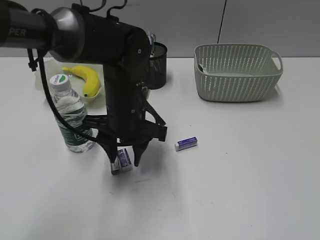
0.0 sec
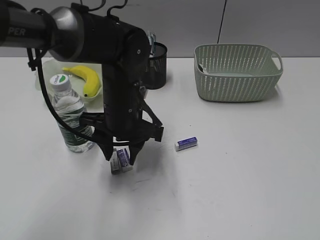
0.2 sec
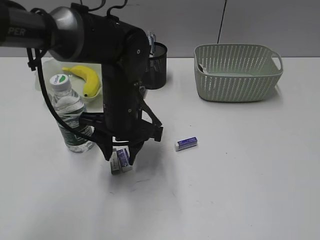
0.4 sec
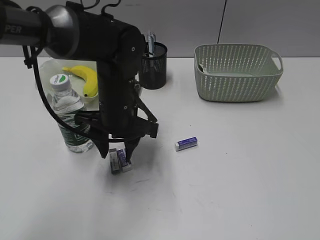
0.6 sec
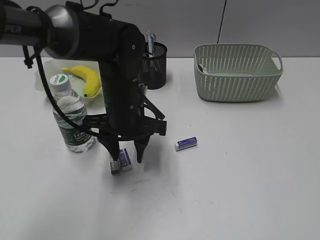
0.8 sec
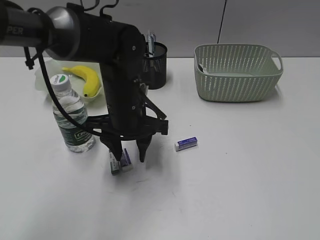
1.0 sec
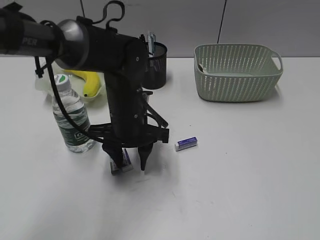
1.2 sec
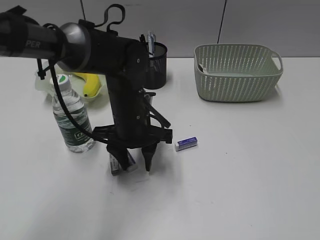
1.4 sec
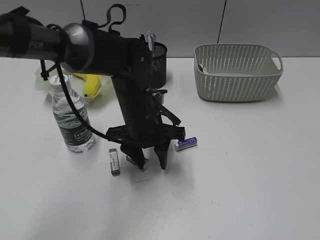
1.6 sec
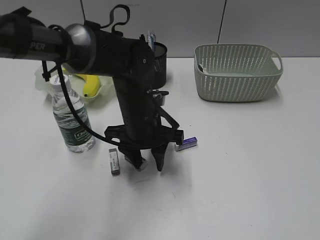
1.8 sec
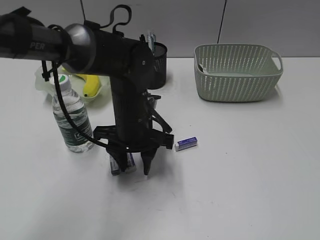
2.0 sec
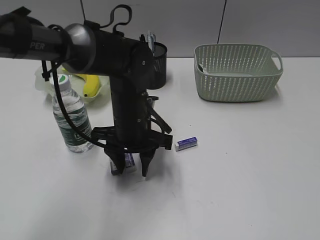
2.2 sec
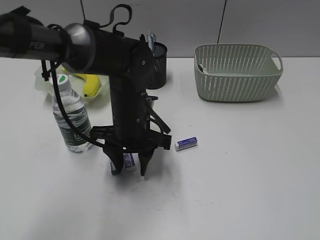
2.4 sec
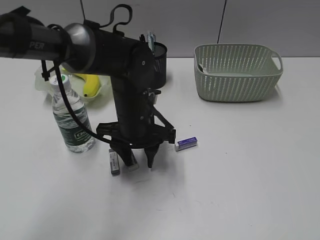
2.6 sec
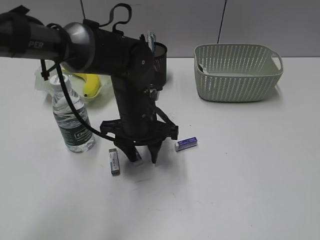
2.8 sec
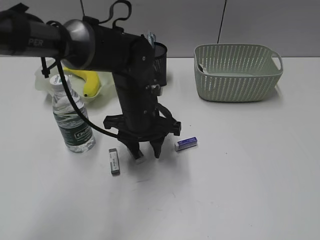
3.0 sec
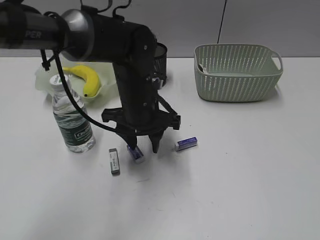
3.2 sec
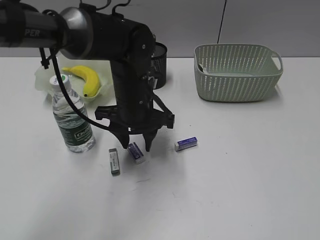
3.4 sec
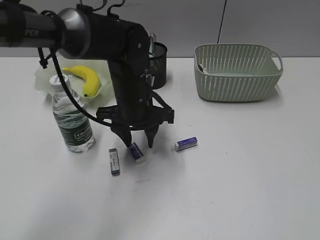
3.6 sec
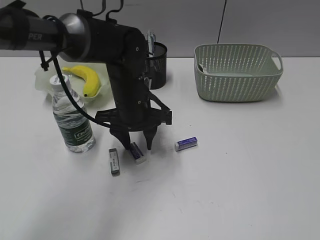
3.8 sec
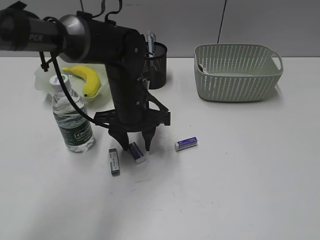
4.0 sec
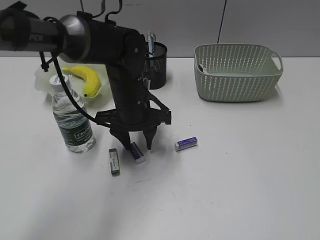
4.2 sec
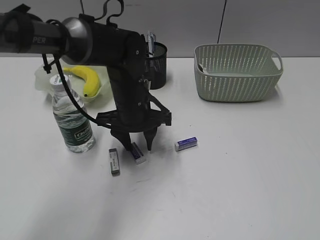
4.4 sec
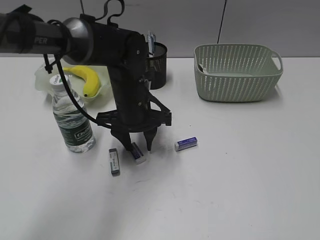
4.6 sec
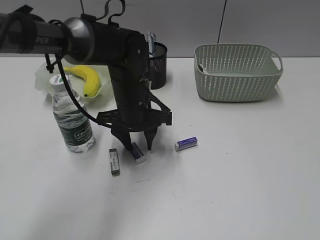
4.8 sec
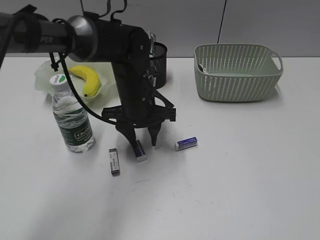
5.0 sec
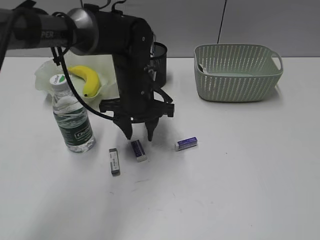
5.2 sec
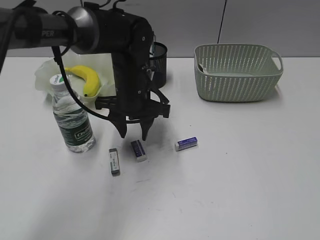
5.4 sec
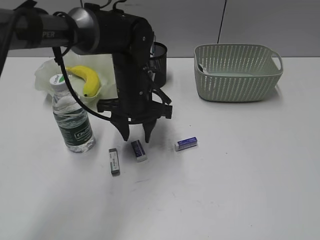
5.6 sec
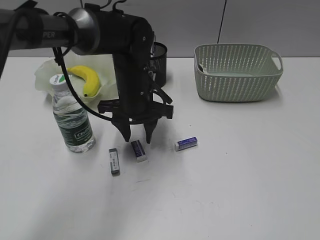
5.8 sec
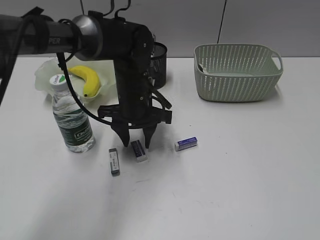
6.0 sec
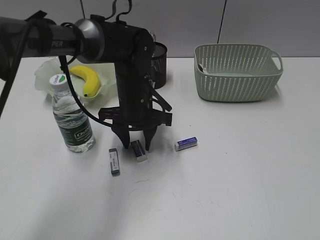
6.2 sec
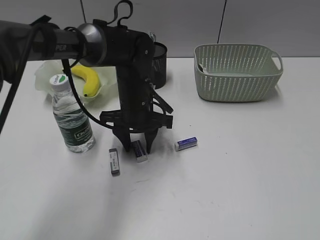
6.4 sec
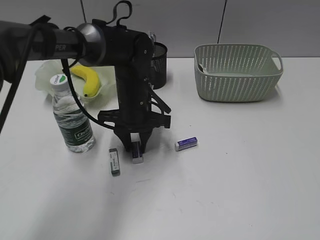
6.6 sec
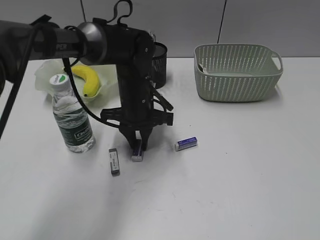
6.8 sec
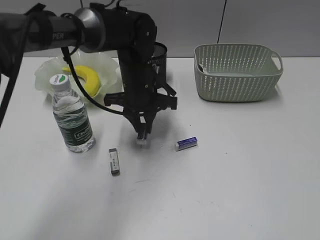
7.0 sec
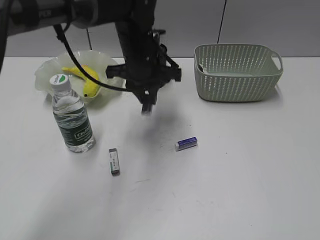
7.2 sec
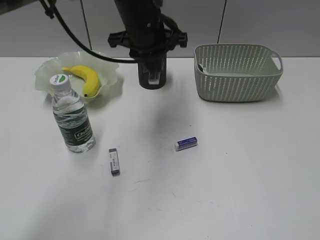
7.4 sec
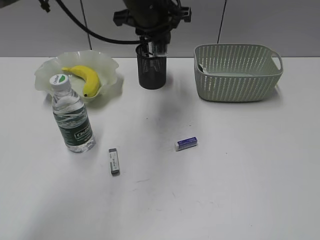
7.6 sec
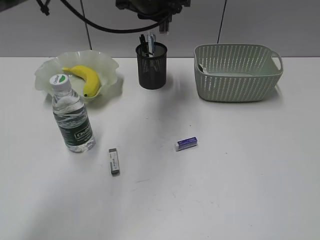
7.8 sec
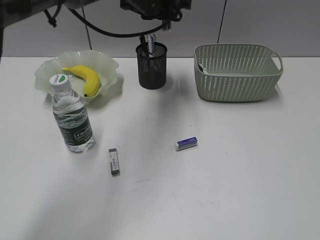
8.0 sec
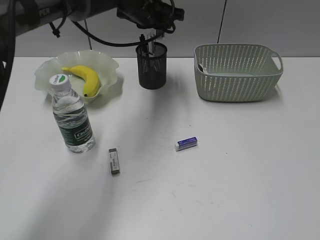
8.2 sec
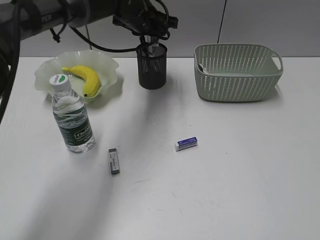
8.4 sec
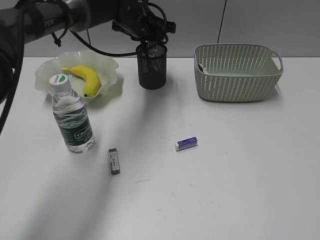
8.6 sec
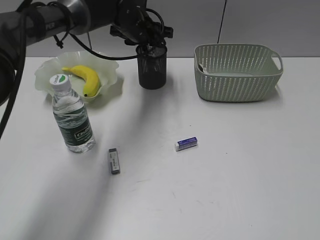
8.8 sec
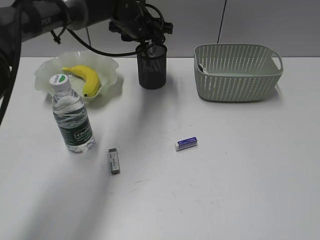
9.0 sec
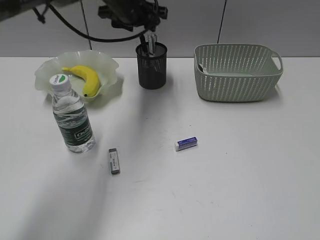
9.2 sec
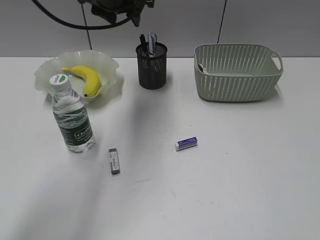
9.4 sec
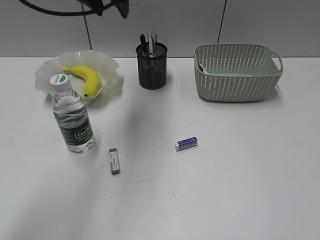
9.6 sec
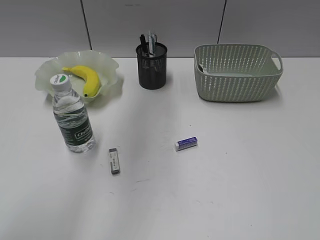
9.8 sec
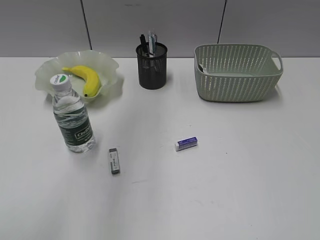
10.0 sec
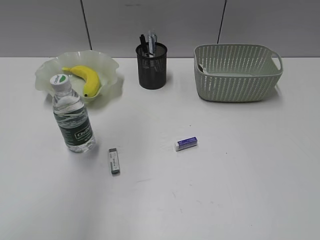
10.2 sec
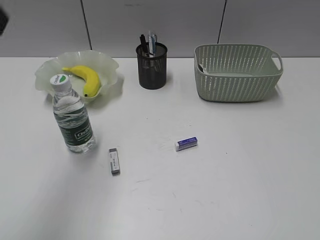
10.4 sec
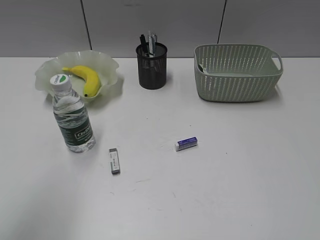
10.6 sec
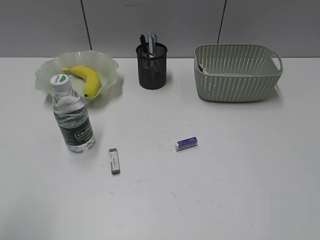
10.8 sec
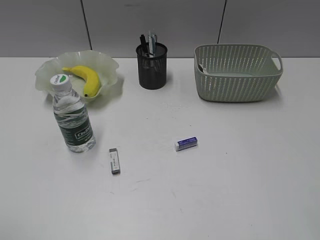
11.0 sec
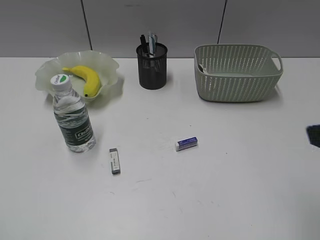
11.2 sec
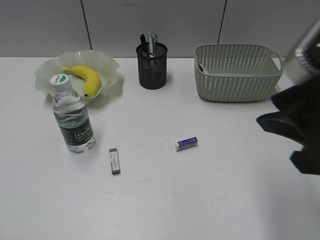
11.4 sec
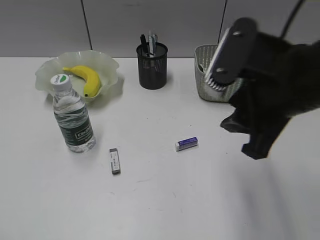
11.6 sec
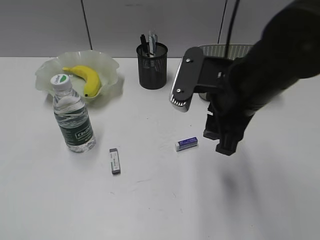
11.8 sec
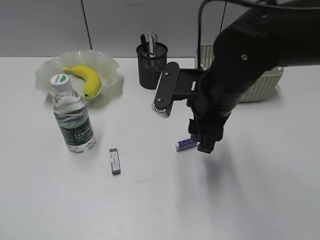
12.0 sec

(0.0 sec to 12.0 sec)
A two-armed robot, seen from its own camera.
Step, 0.0 sec - 6.6 sec: Grasp the eraser with left gripper.
Step, 6.8 sec - 9.0 sec: Place the eraser in pen holder with left gripper.
0.0 sec - 6.0 sec: The grippers move only a little.
6.0 sec - 7.6 sec: The left gripper shifts roughly 15 cm upward and forward, and closes its fingers.
7.6 sec - 9.0 sec: The left gripper goes roughly 10 cm forward and downward, and opens.
9.0 sec - 10.4 sec: The left gripper moves backward, upward and to the left, some 40 cm.
10.4 sec - 12.0 sec: The right gripper is displaced forward and to the left by approximately 35 cm. The left gripper goes approximately 25 cm backward, downward and to the left.

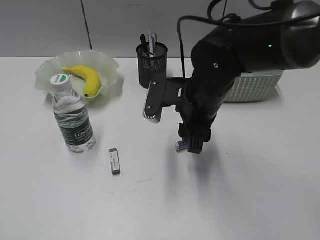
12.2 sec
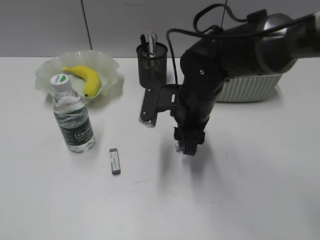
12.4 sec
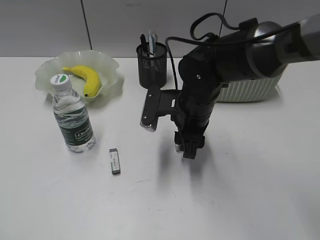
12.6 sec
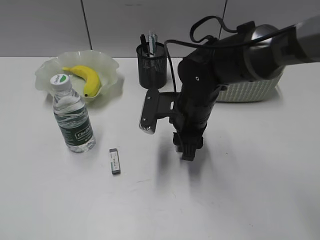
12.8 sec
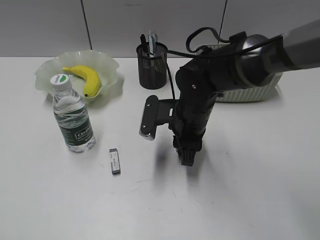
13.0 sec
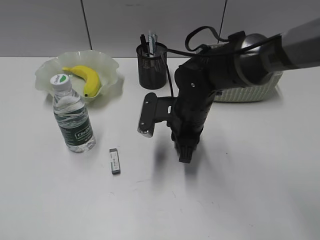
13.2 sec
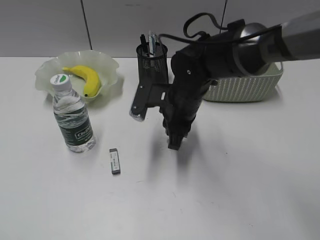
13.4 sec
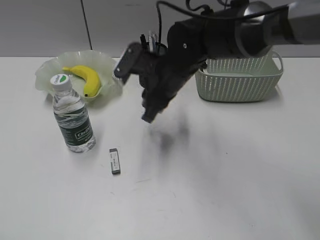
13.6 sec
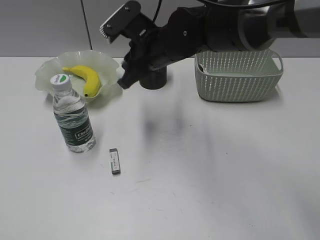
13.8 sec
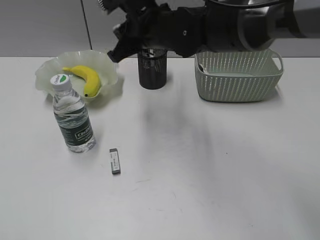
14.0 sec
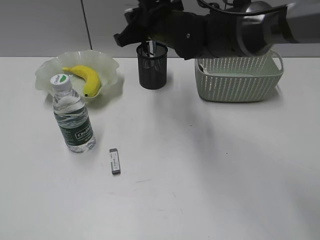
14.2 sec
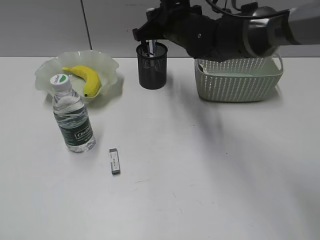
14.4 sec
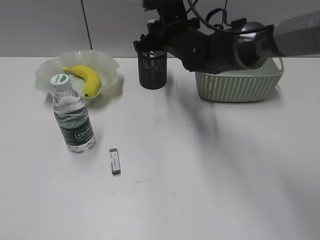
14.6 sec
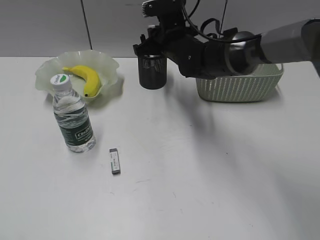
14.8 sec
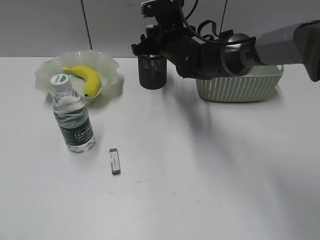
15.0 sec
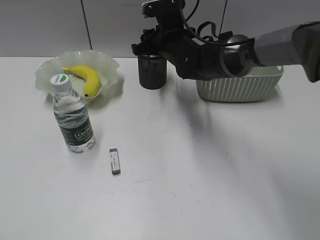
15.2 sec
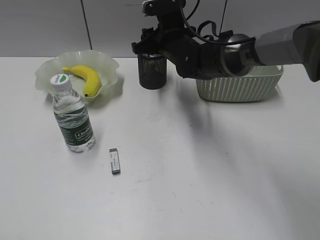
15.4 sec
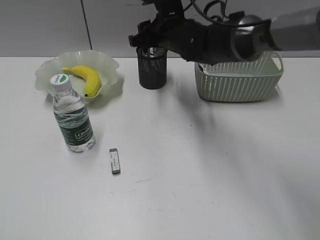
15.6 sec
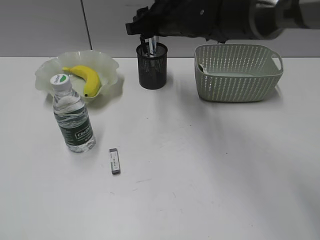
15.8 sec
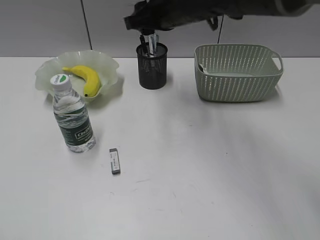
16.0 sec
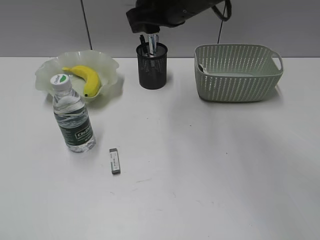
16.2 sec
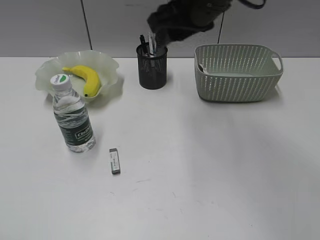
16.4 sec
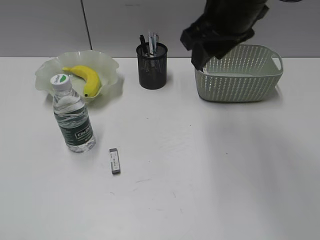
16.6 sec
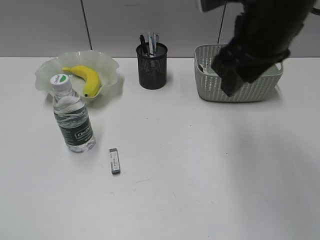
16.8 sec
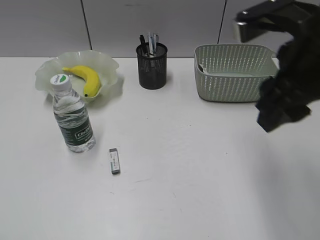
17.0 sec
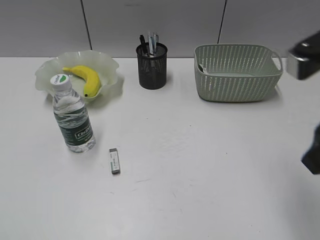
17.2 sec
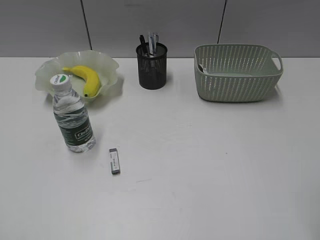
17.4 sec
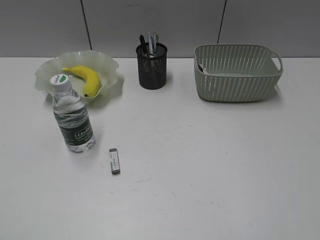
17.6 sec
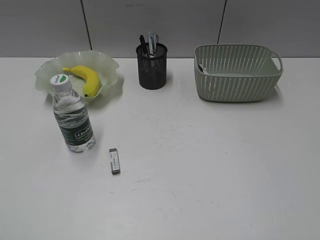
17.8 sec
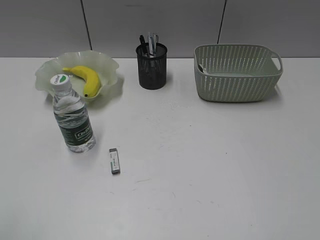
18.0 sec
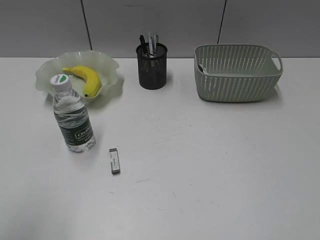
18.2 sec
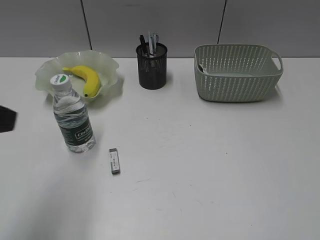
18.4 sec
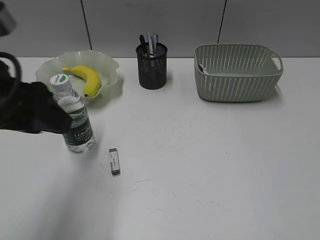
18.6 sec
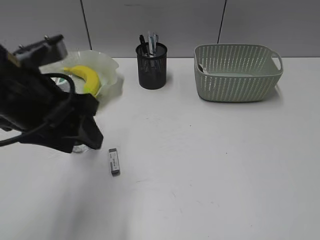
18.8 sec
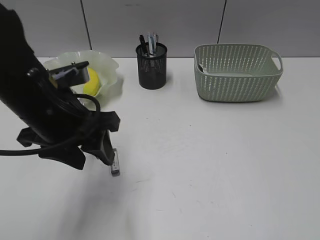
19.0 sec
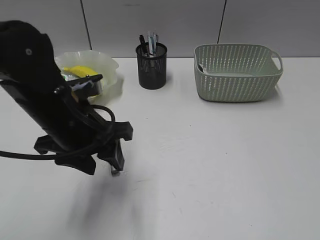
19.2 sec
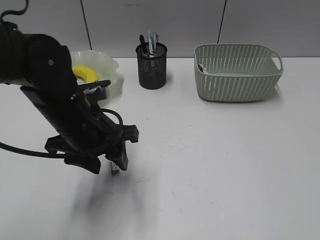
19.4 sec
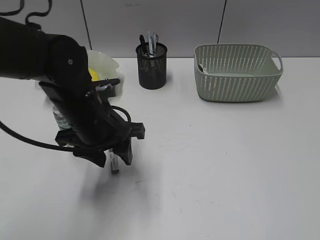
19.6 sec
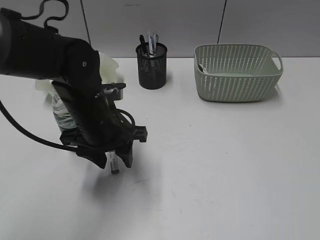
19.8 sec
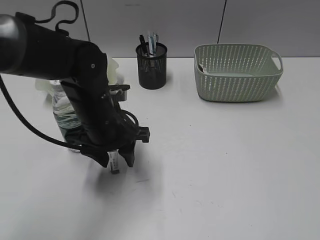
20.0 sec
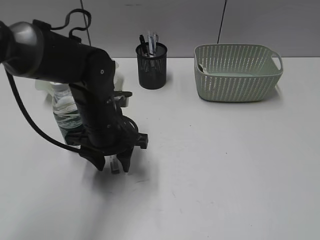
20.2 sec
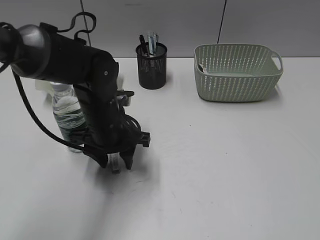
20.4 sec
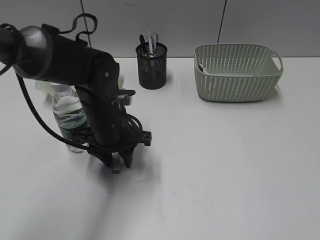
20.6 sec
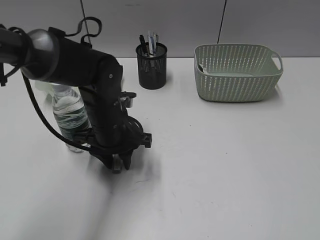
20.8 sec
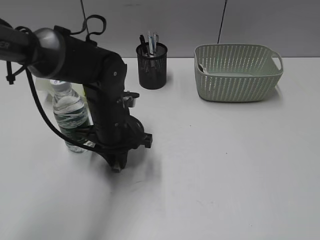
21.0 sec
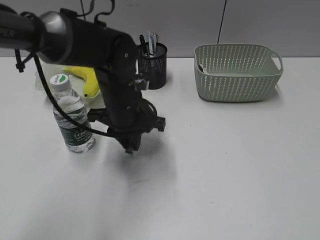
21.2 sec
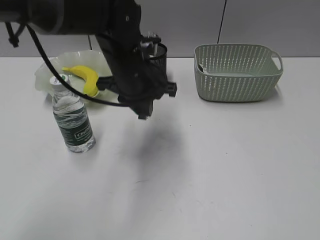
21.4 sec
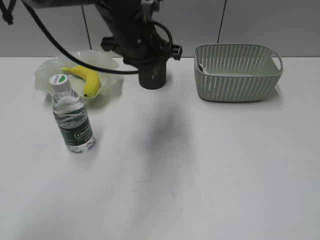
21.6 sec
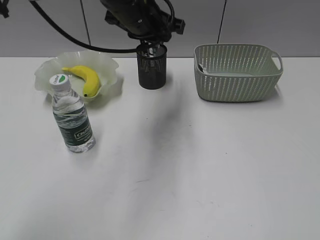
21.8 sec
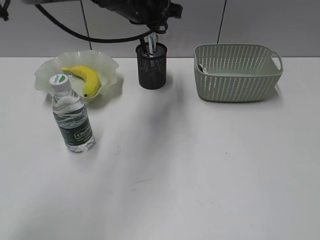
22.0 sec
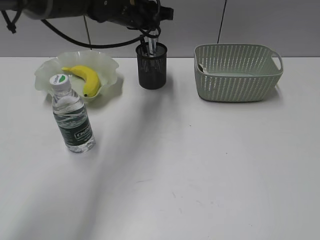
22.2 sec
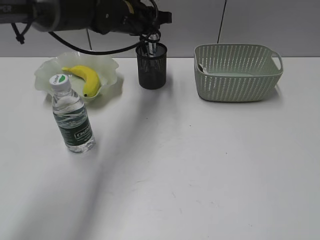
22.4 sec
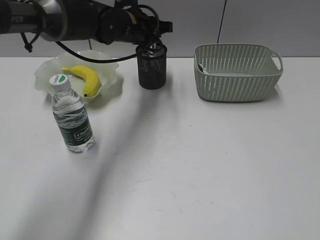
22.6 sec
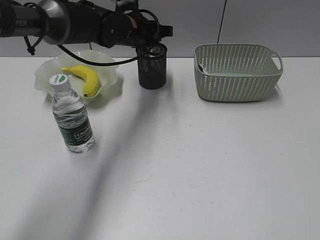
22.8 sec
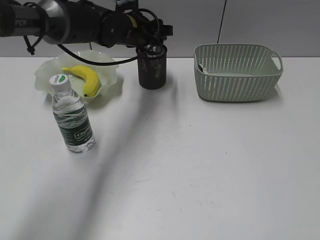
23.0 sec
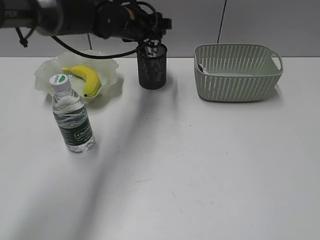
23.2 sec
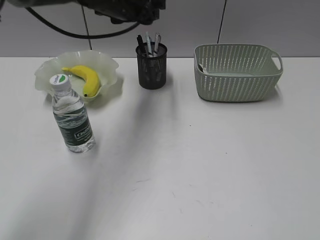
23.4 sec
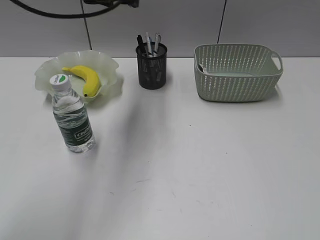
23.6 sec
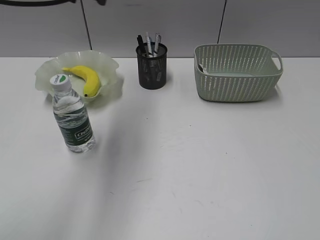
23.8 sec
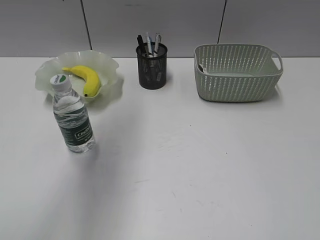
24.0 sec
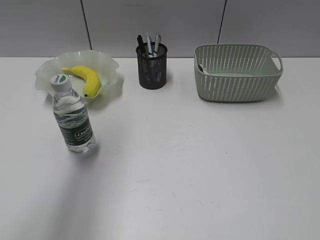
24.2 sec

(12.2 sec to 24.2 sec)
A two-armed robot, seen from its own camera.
Step, 13.4 sec - 15.4 sec: Place the eraser in pen holder with right gripper.
Step, 15.6 sec - 21.0 sec: Grasp the eraser with left gripper.
Step, 21.2 sec - 23.0 sec: Place the eraser in pen holder with left gripper.
12.2 sec - 13.8 sec: The right gripper goes about 10 cm forward and to the left, reaches about 5 cm downward, then returns, and closes up.
13.8 sec - 15.2 sec: The right gripper moves forward, roughly 10 cm, and opens its fingers.
15.2 sec - 16.6 sec: The right gripper travels upward, backward and to the right by roughly 20 cm.
16.6 sec - 18.2 sec: The right gripper shifts roughly 40 cm backward and to the right. The left gripper travels forward by about 5 cm.
18.2 sec - 19.8 sec: The left gripper shifts approximately 35 cm forward, to the right and downward.
19.8 sec - 21.2 sec: The left gripper ends up roughly 5 cm from where it was, and closes its fingers.
21.2 sec - 22.6 sec: The left gripper goes some 15 cm forward and upward.
22.6 sec - 24.2 sec: The left gripper goes roughly 30 cm upward, backward and to the left, and opens.
